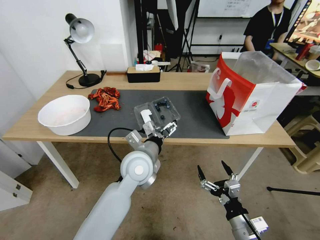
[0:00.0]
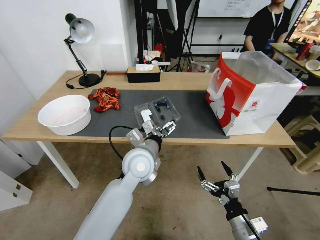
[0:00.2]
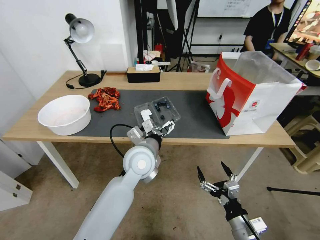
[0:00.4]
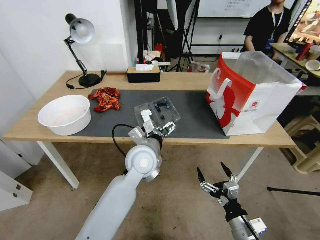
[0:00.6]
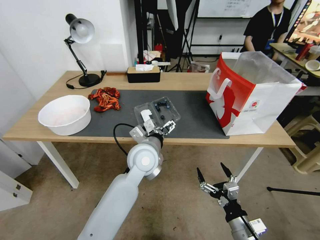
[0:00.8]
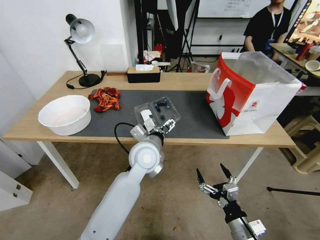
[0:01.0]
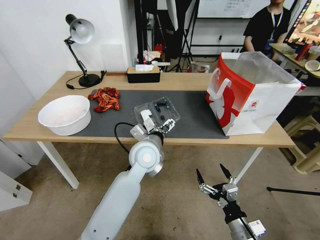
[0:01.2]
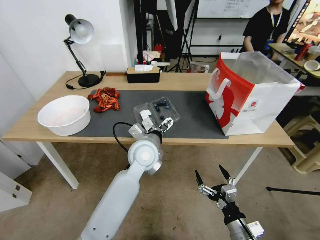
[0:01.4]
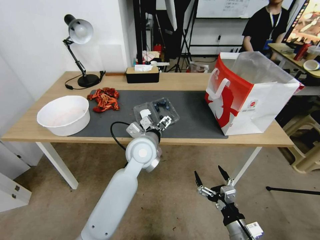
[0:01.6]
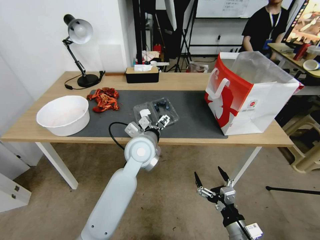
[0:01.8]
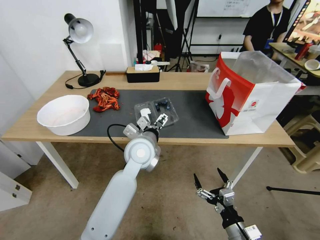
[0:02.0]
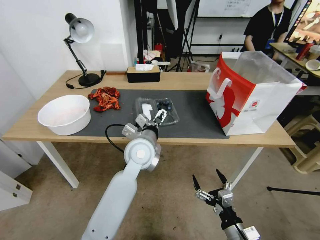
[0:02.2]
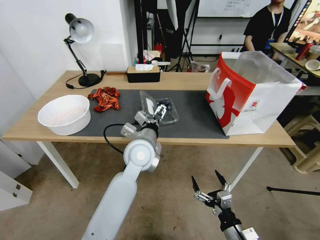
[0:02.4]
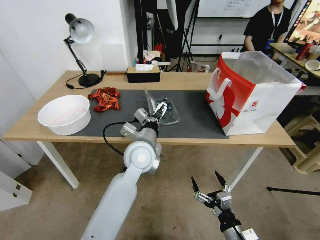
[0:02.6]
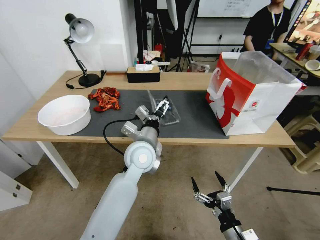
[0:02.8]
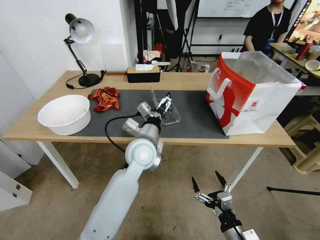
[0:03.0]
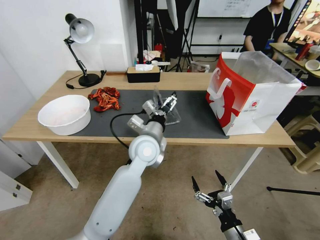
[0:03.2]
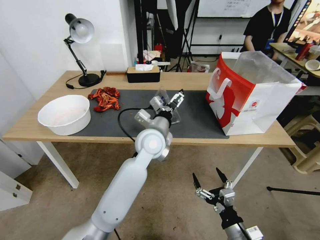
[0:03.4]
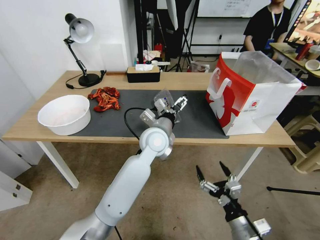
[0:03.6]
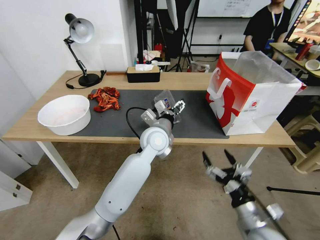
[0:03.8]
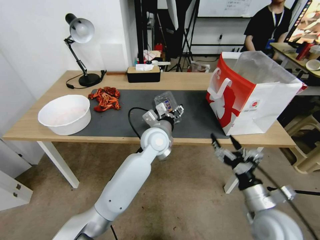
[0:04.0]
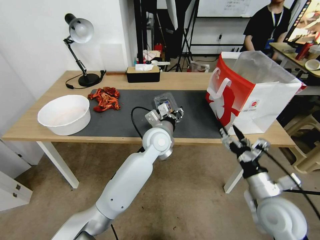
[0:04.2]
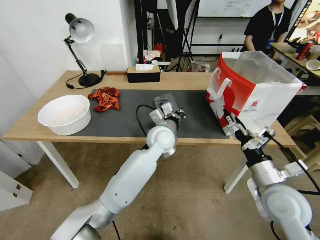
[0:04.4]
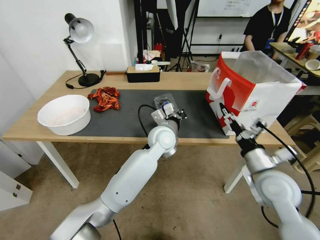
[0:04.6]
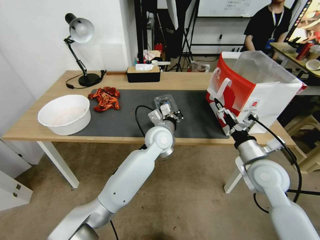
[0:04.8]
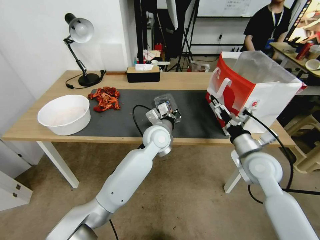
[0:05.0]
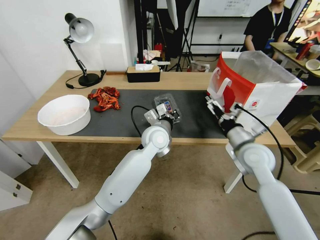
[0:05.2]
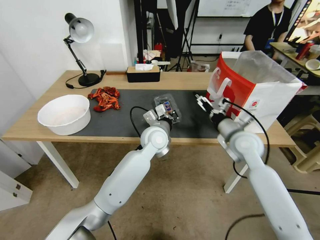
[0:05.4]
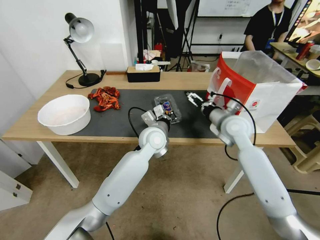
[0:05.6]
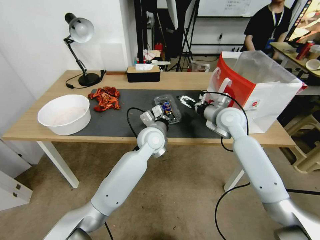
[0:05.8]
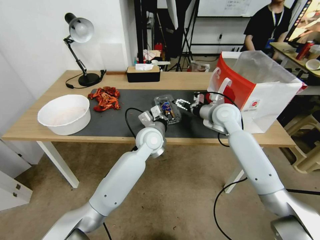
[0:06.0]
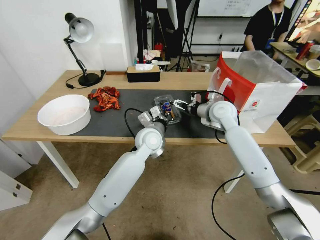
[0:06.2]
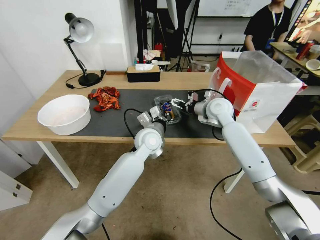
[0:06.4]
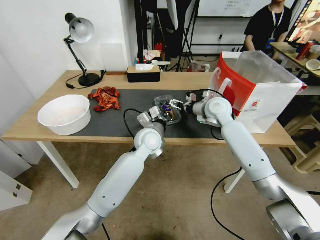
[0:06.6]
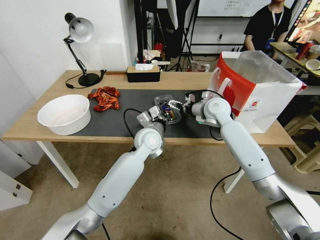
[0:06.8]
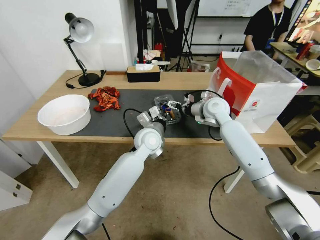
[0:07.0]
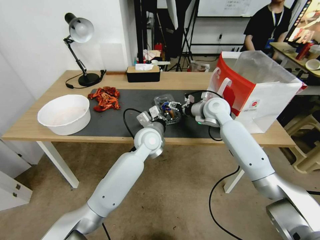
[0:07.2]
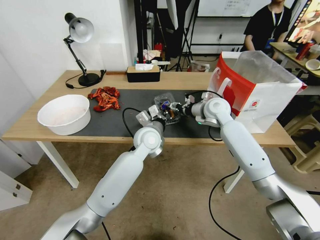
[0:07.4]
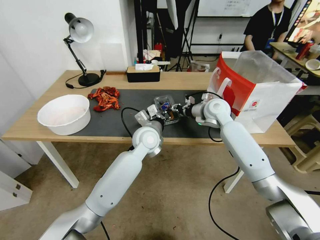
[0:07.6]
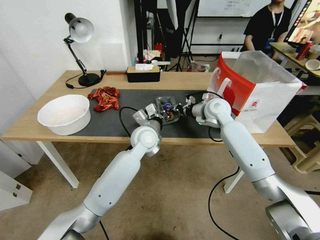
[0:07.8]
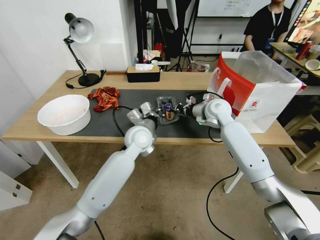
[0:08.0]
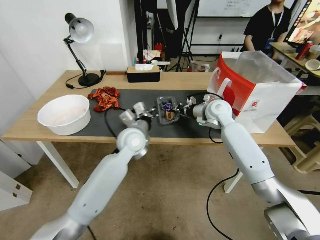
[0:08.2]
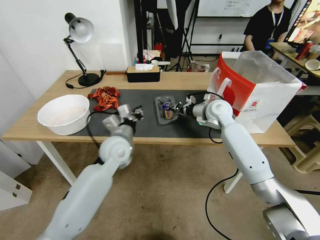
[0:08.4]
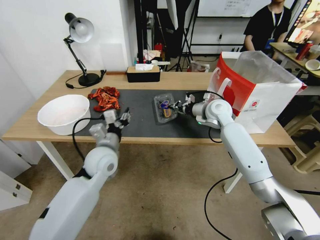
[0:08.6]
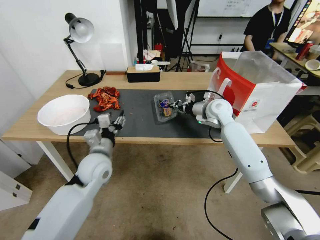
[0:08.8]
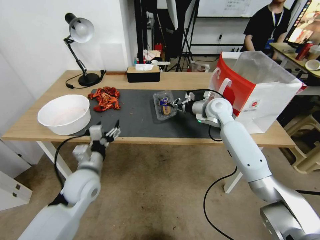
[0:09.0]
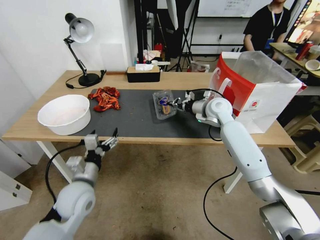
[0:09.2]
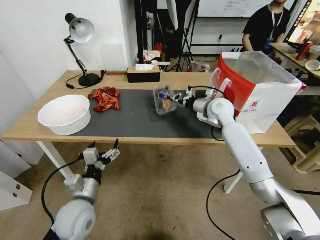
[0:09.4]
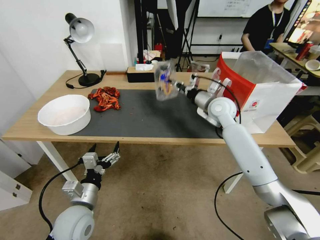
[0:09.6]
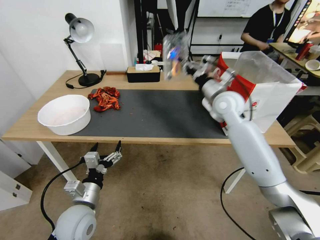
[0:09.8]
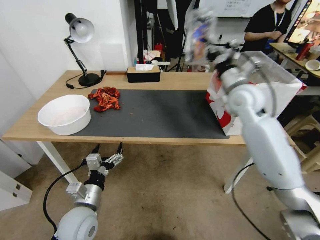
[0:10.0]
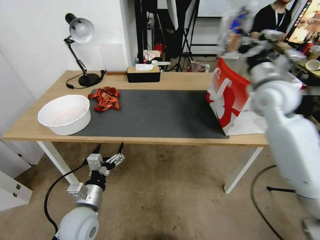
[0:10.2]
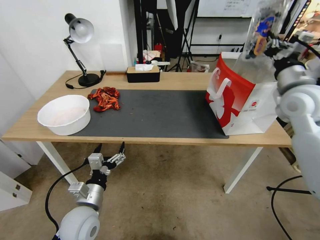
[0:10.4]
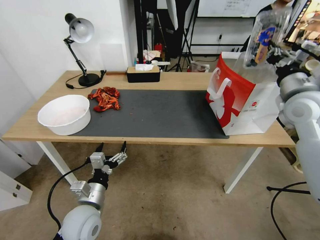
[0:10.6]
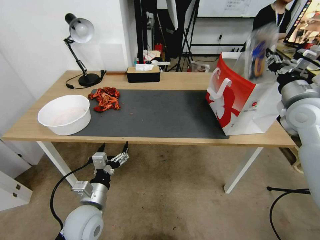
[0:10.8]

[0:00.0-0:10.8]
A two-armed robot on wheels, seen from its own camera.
Task of the whole recording: Close the takeout container lid, then place the container into the takeout bag.
0:00.0 to 0:01.6: The grippers make only small movements.
0:03.0 to 0:04.6: The right gripper shifts some 25 cm upward and forward; the left gripper travels forward and to the right by about 10 cm, and closes.
0:04.6 to 0:06.2: The right gripper goes about 25 cm forward.
0:06.2 to 0:07.8: The right gripper closes.
0:07.8 to 0:09.2: The left gripper is displaced backward and to the left by approximately 25 cm, and opens up.
0:09.2 to 0:10.8: The right gripper heads to the right, backward and upward, covering approximately 25 cm. The left gripper ends up some 5 cm from where it was.

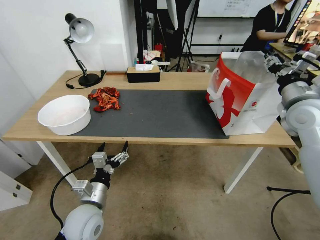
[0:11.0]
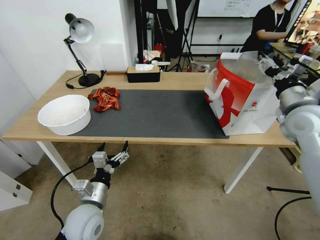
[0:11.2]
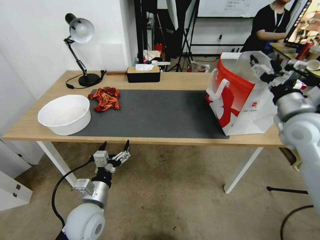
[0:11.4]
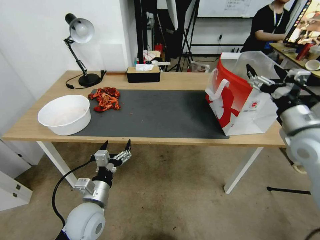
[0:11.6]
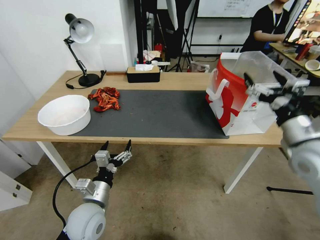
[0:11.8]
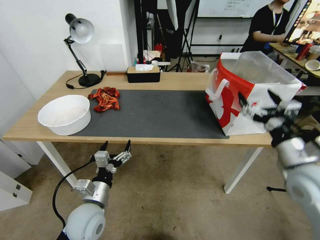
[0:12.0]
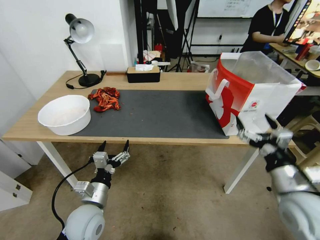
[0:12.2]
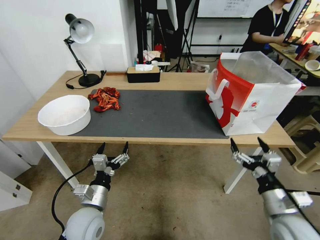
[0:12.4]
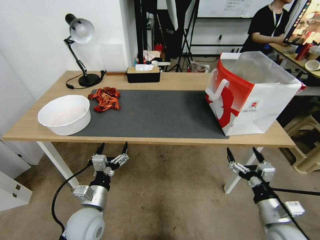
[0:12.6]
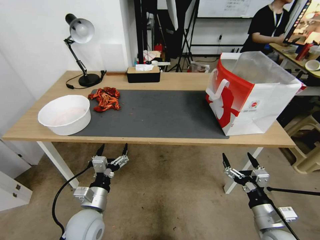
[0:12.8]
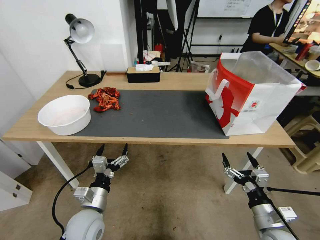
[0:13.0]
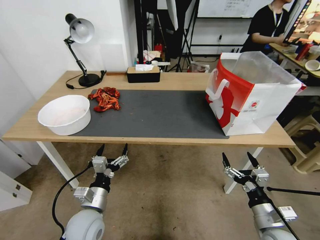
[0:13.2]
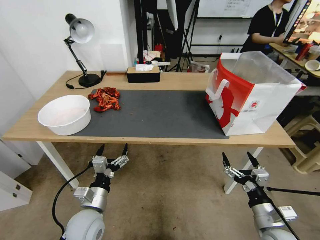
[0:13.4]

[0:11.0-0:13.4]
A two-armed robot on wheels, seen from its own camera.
Task of the whole recording: Close the takeout container lid, then place the container into the takeout bag.
0:11.0 to 0:12.2: The right gripper is displaced backward and downward by approximately 25 cm, and opens up.
0:12.2 to 0:13.4: The right gripper is displaced downward and backward by some 15 cm.
